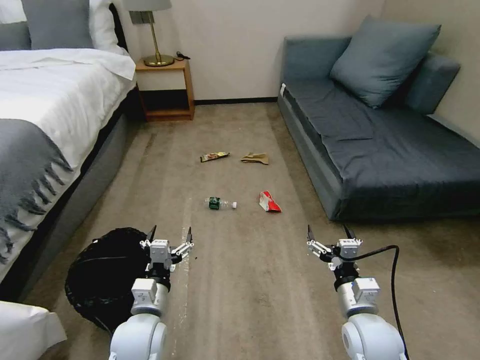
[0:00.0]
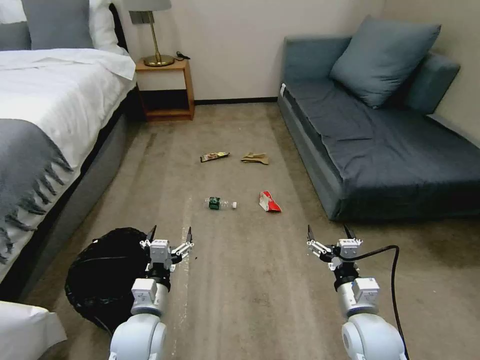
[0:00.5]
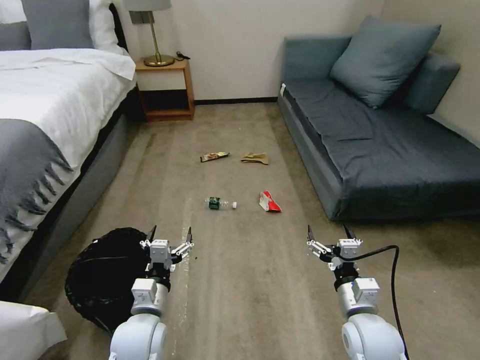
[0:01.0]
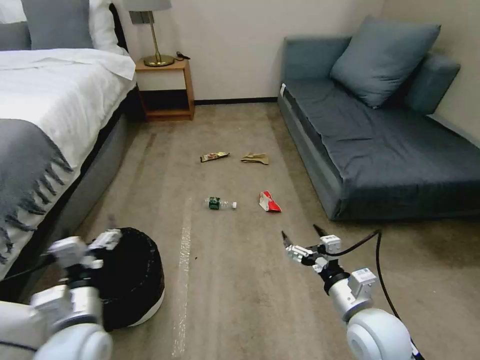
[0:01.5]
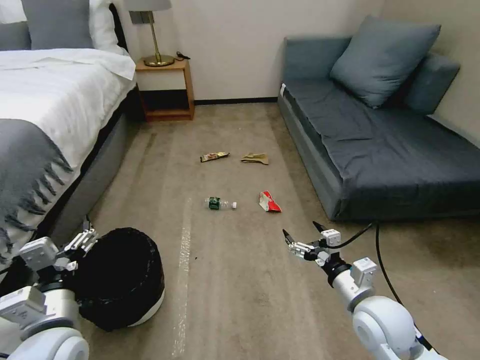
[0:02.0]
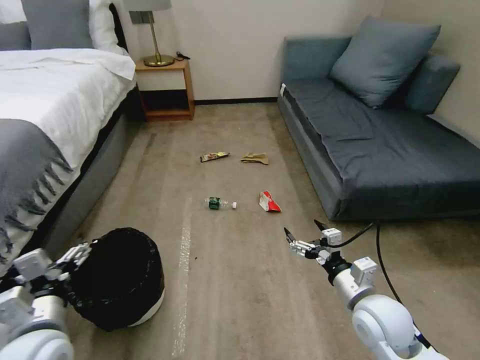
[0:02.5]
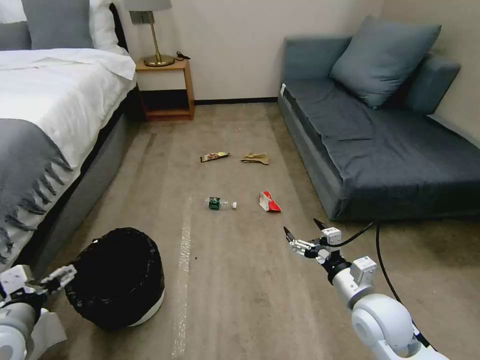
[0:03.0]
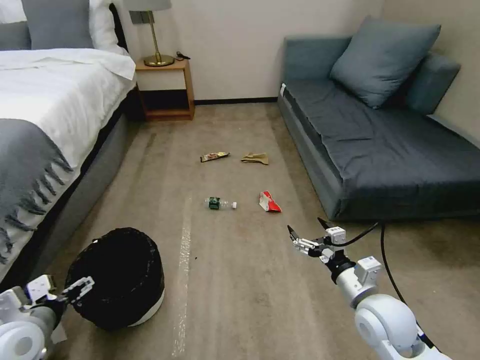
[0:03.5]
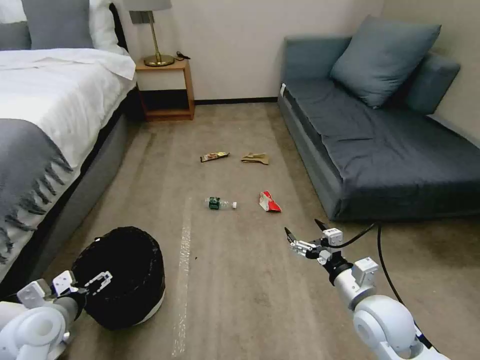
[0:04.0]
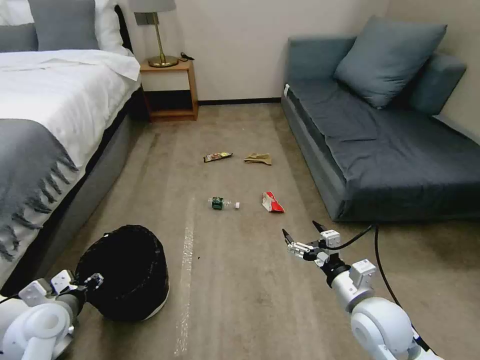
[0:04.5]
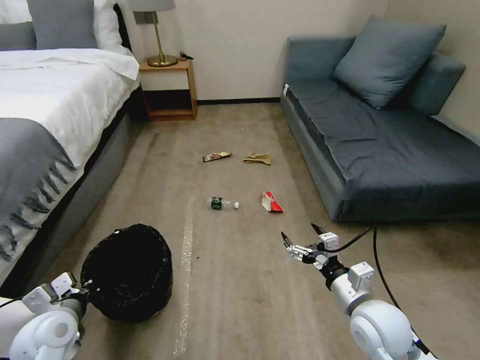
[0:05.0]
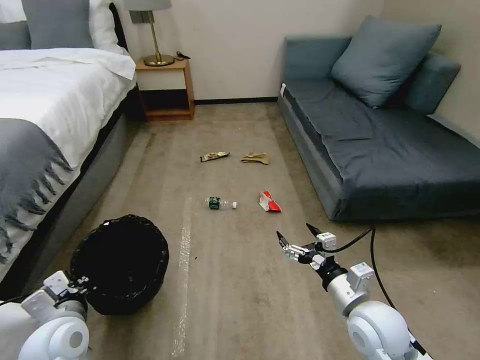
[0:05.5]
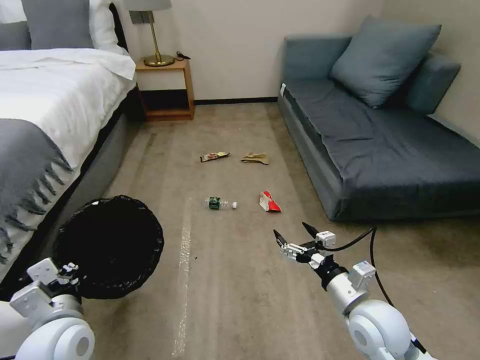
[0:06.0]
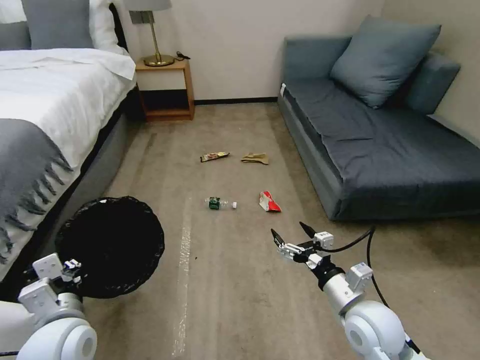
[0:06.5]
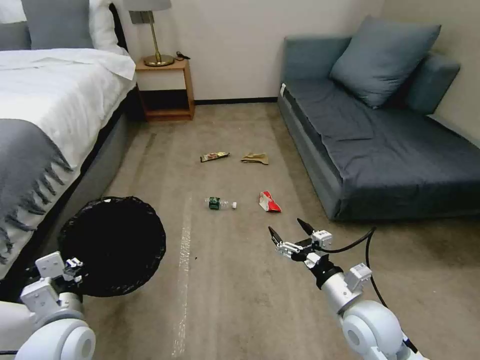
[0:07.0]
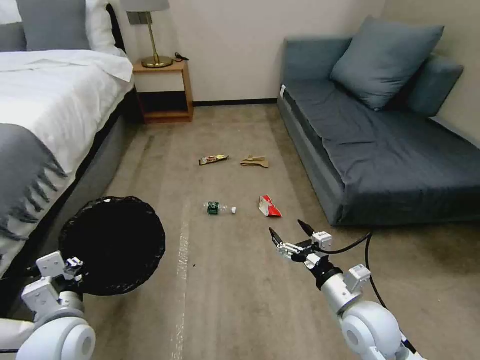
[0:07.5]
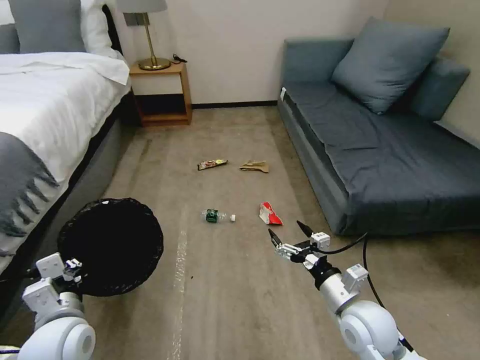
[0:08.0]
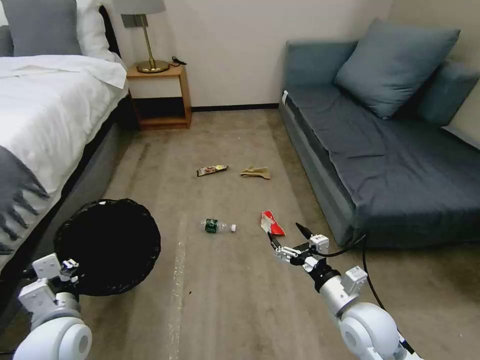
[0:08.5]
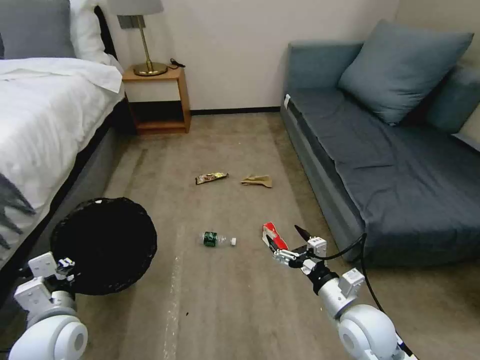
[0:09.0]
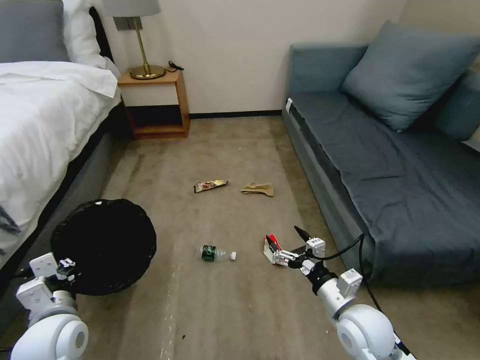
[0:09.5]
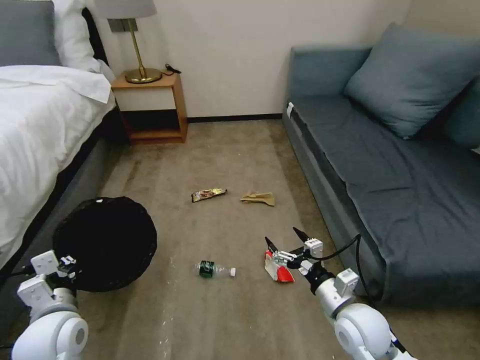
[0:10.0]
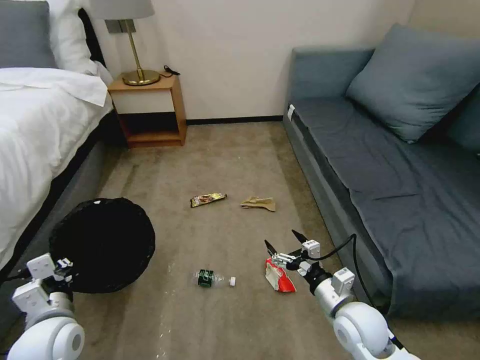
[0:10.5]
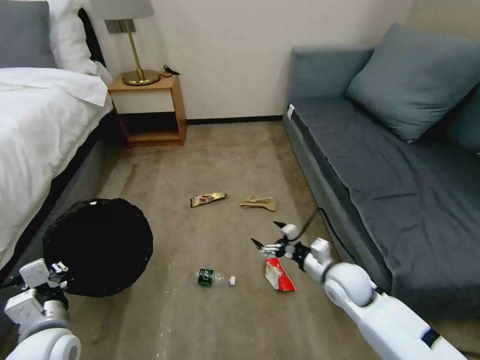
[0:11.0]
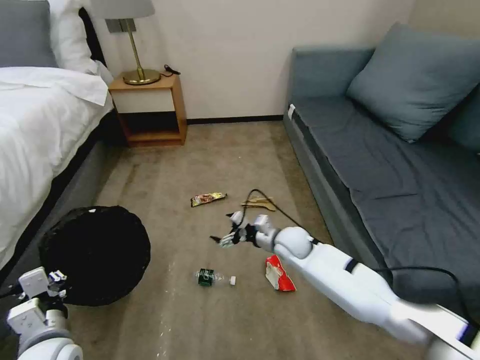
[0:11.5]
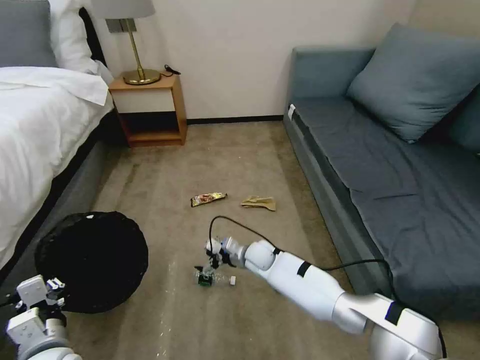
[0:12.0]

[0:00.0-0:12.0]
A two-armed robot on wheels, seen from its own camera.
Task of the whole recording: Pick up the trash bin, then pick up the garbage on the floor and place it into the trash bin.
2.0 to 4.0 s: The left gripper shifts about 10 cm to the left and downward.
4.0 to 6.0 s: The left gripper moves to the right, approximately 10 cm, and closes its fingers.
10.0 to 12.0 s: The right gripper travels forward, to the left and downward by approximately 30 cm, while the left gripper shifts some 5 cm backward.

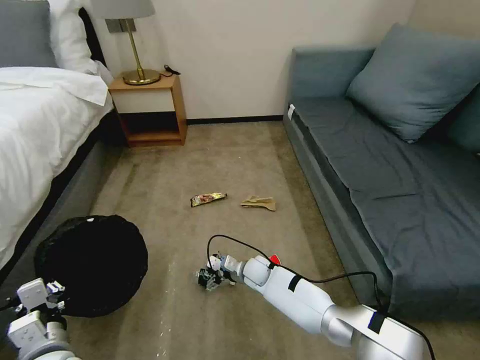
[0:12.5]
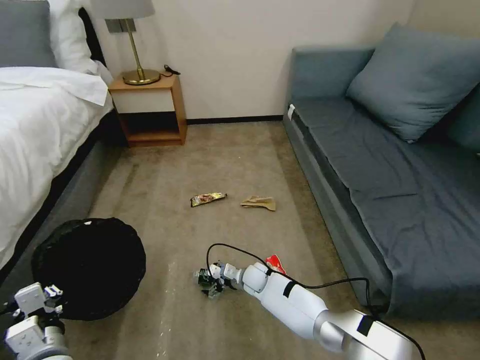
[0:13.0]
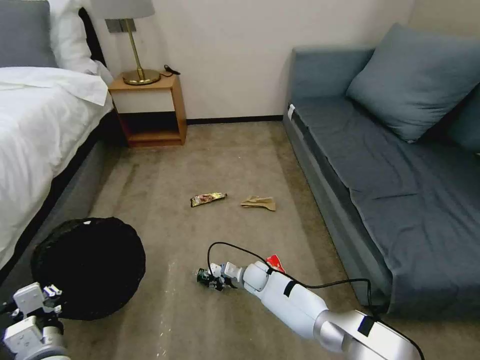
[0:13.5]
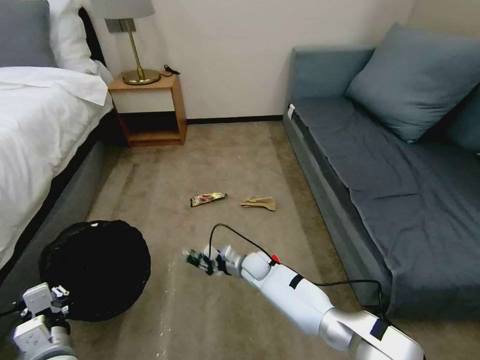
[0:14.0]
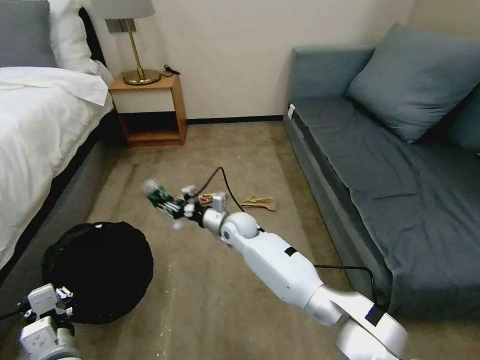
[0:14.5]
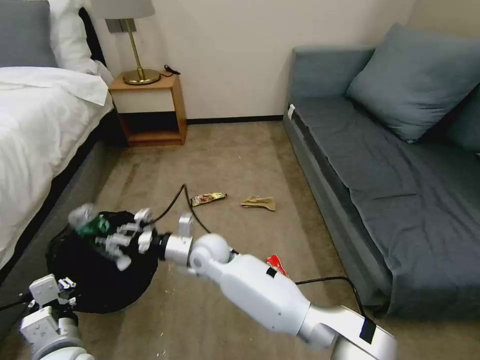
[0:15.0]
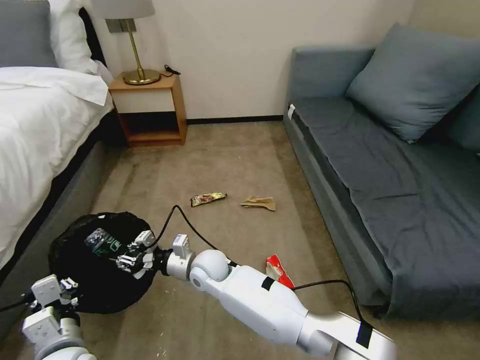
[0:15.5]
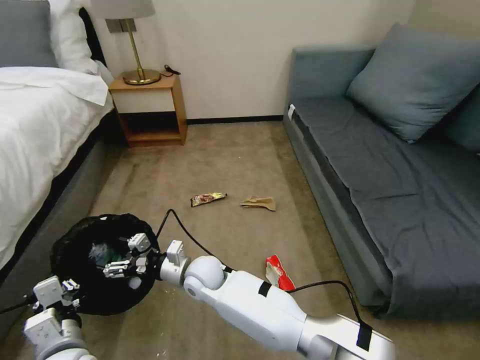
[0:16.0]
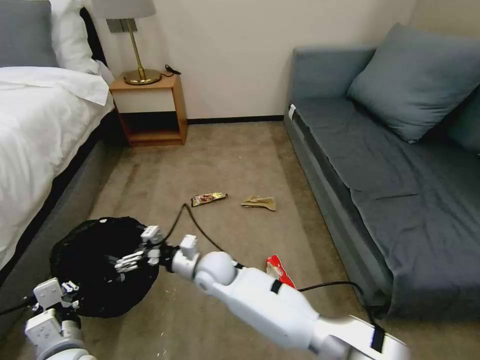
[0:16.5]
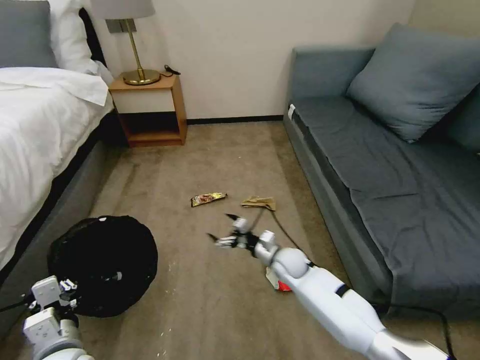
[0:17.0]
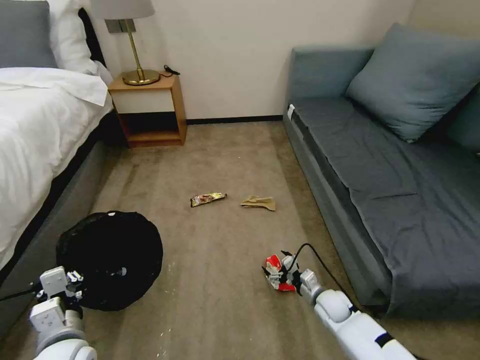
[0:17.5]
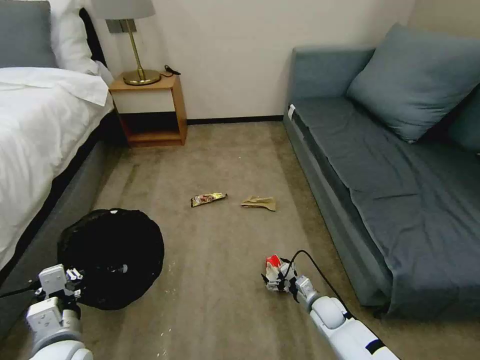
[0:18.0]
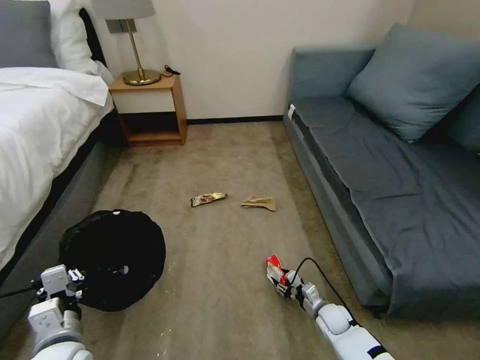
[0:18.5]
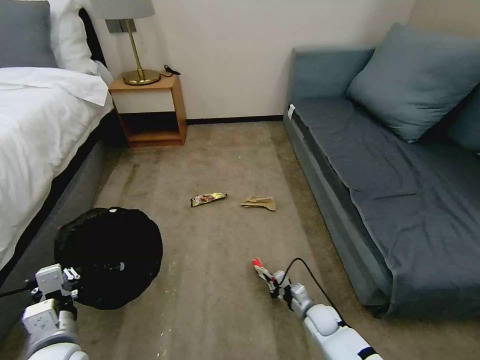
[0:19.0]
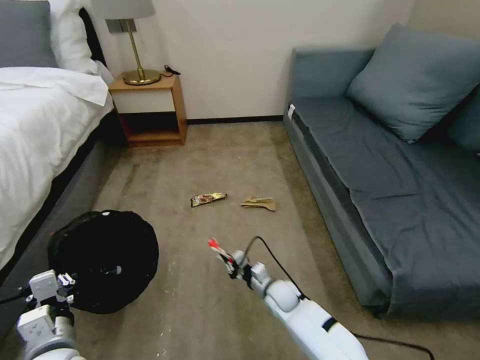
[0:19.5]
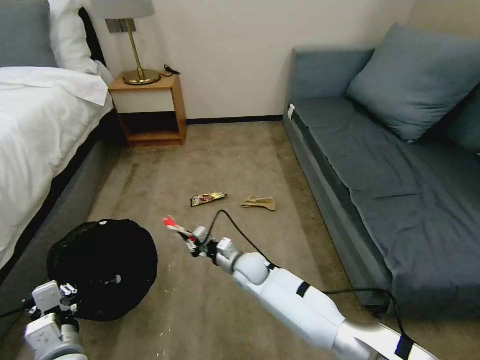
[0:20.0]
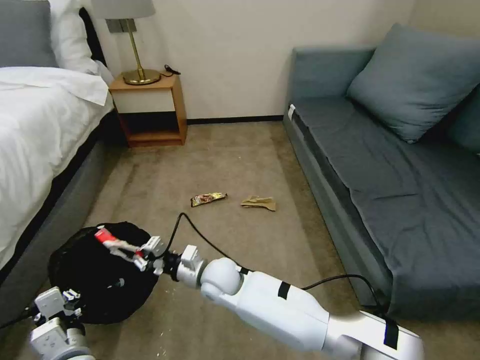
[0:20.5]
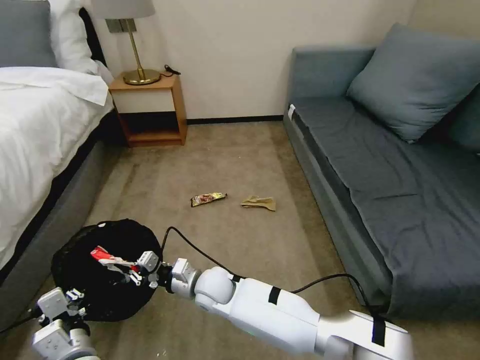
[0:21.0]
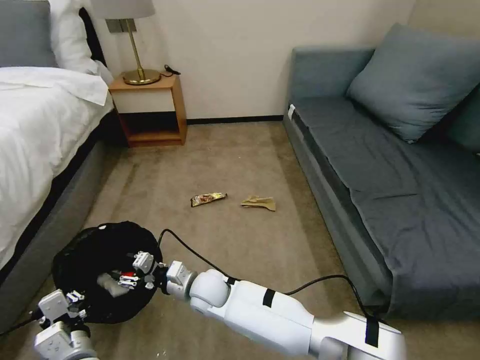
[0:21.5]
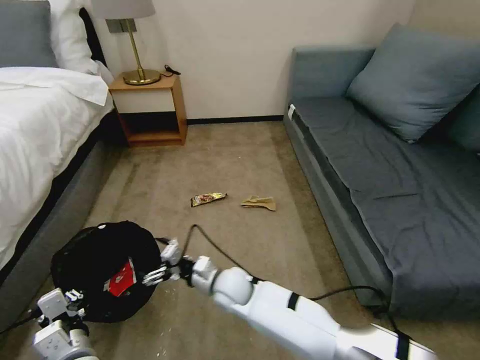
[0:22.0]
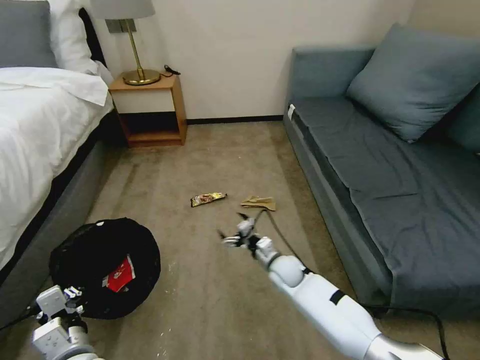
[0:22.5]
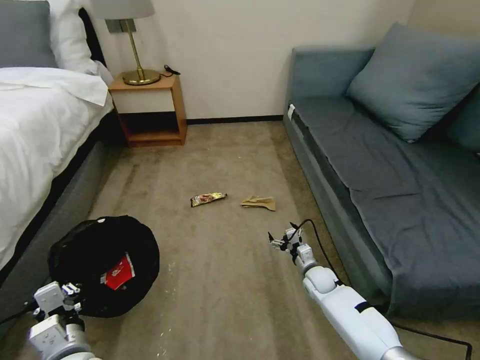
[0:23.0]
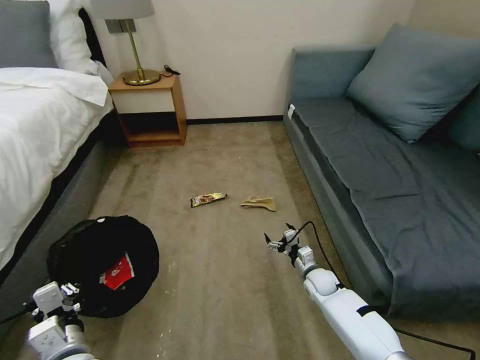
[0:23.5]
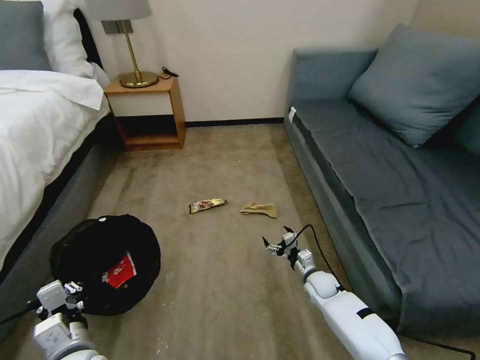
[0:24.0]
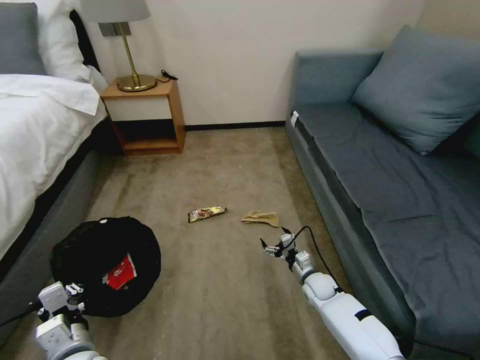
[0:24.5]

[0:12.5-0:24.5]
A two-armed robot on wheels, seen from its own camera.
Task of the whole recording: Pick up the trash bin, then pick up the garbage on the floor and place it into the trash bin.
12.5 to 14.5 s: The right gripper is displaced upward by about 15 cm, and closes its fingers.
14.5 to 16.5 s: The right gripper shifts approximately 15 cm backward and to the left, and opens up.
16.5 to 18.5 s: The right gripper heads to the right and downward, covering roughly 40 cm, and closes.
18.5 to 20.5 s: The right gripper travels to the left and upward by roughly 40 cm, and closes its fingers.
20.5 to 22.5 s: The right gripper moves to the right and downward, roughly 20 cm, and opens up.
22.5 to 24.5 s: The right gripper travels to the right and downward by about 15 cm.

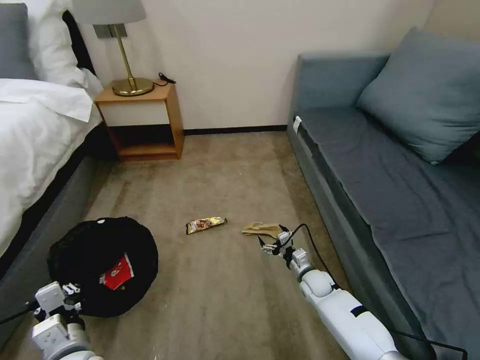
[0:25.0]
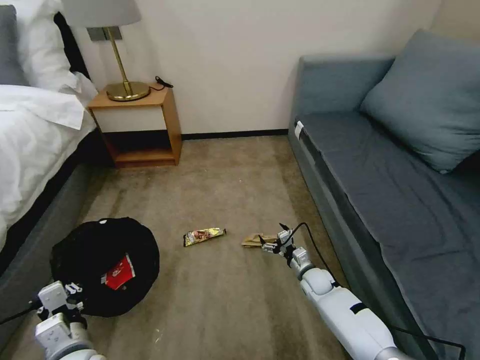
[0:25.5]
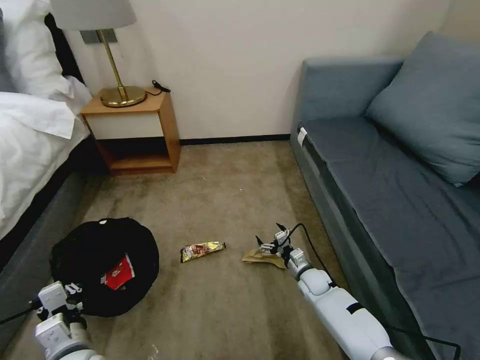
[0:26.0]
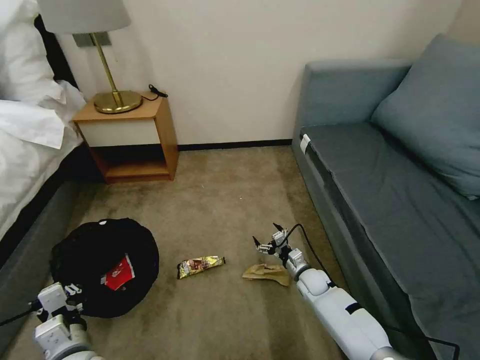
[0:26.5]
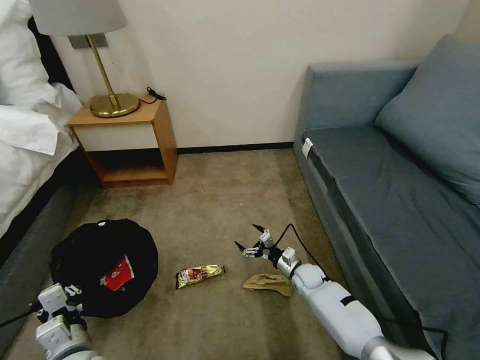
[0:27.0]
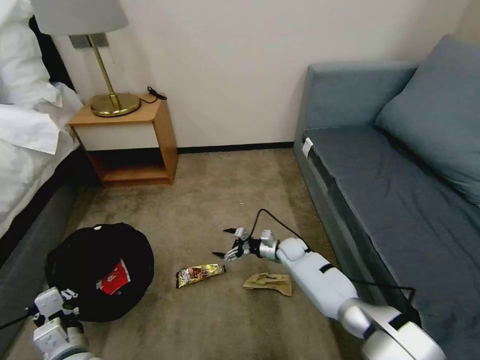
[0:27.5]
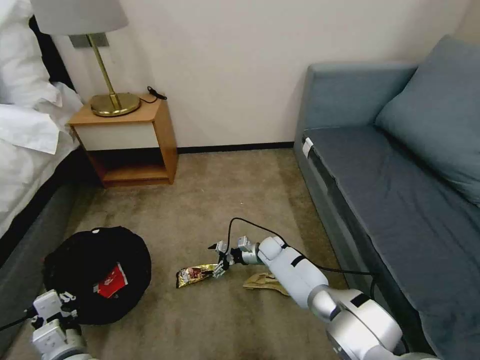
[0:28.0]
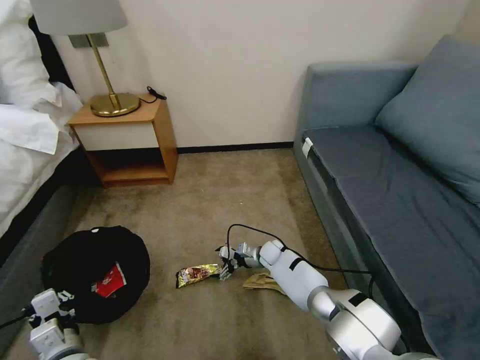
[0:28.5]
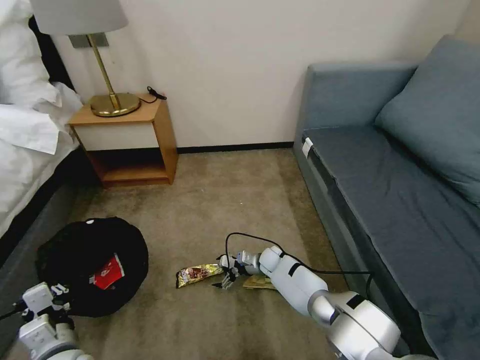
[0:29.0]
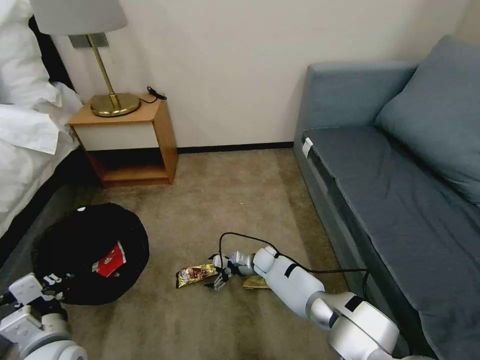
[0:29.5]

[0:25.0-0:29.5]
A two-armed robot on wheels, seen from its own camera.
Task of the whole recording: Pick up the trash bin, then pick up the garbage on the floor and place it into the trash bin.
27.0 to 29.5 s: The right gripper goes roughly 15 cm to the left and forward.
